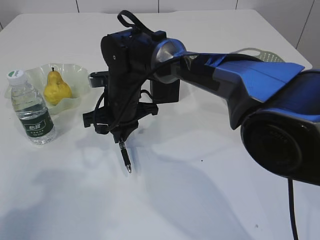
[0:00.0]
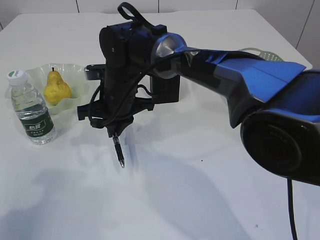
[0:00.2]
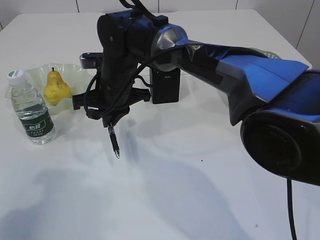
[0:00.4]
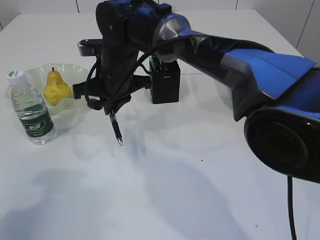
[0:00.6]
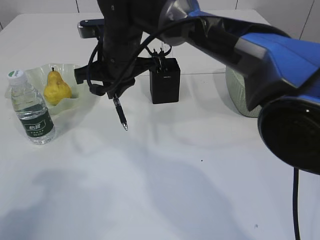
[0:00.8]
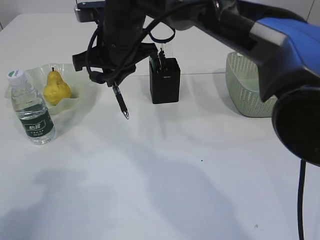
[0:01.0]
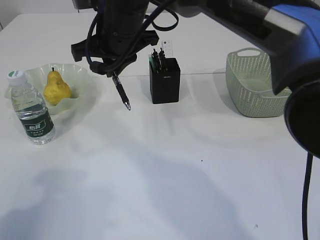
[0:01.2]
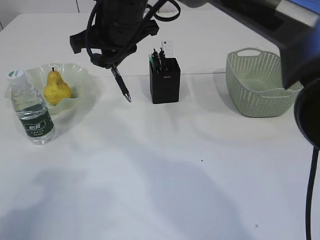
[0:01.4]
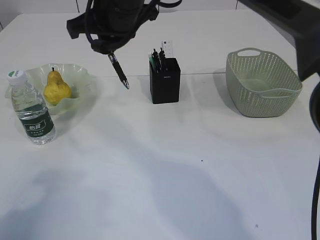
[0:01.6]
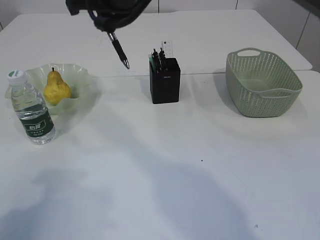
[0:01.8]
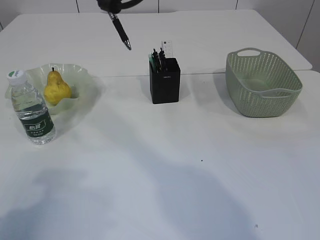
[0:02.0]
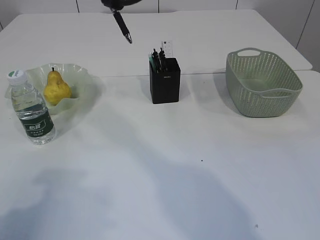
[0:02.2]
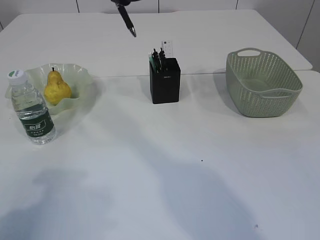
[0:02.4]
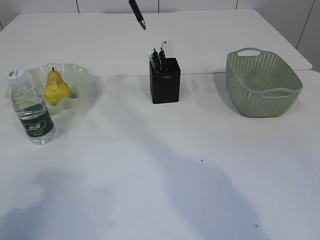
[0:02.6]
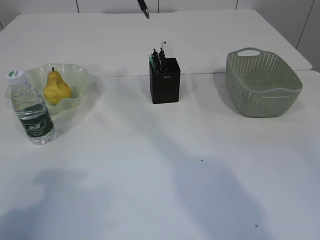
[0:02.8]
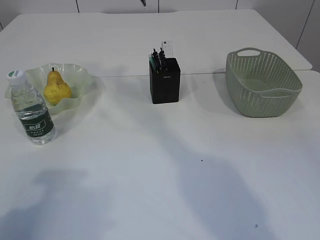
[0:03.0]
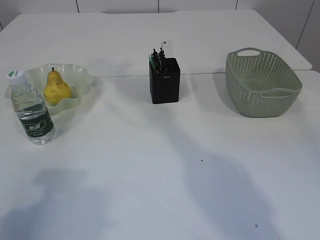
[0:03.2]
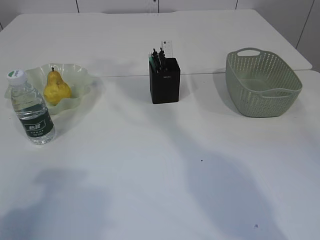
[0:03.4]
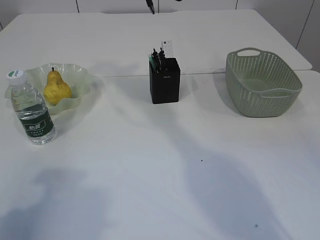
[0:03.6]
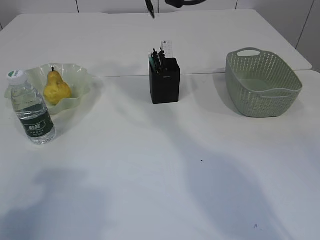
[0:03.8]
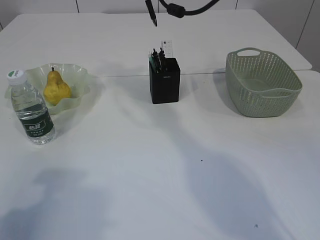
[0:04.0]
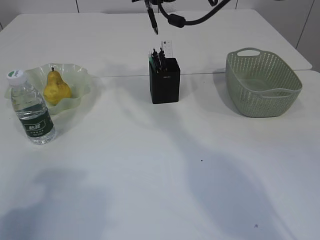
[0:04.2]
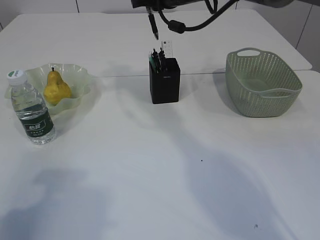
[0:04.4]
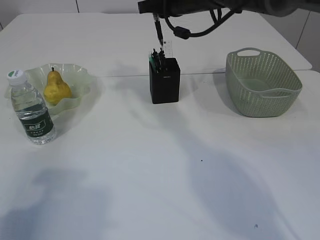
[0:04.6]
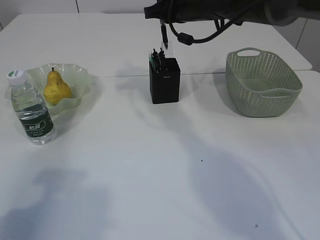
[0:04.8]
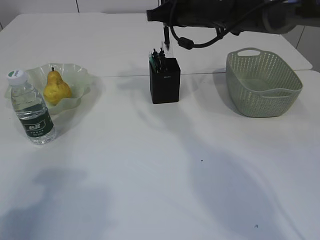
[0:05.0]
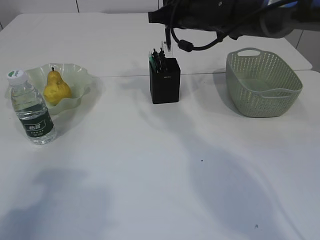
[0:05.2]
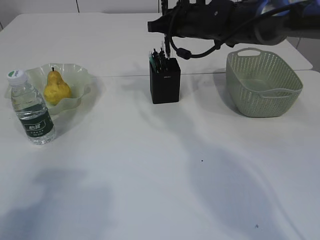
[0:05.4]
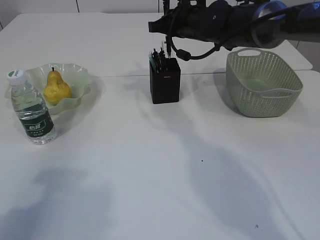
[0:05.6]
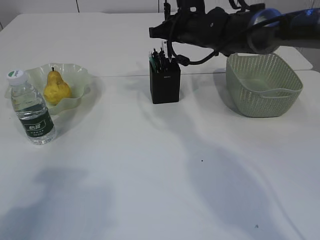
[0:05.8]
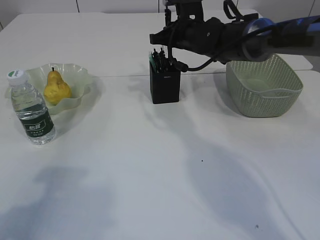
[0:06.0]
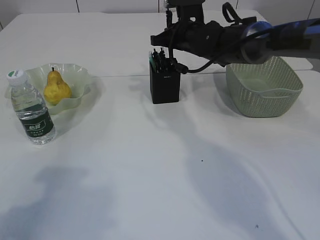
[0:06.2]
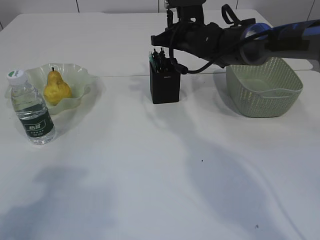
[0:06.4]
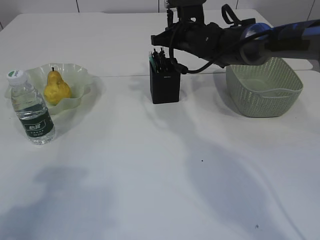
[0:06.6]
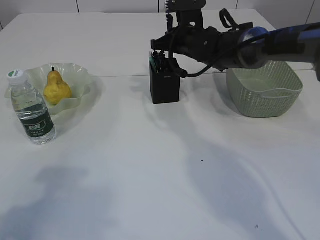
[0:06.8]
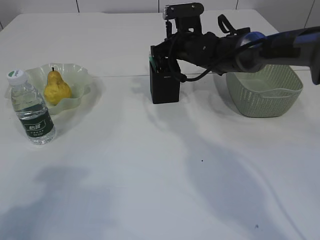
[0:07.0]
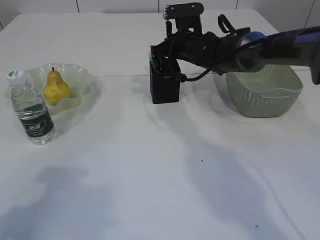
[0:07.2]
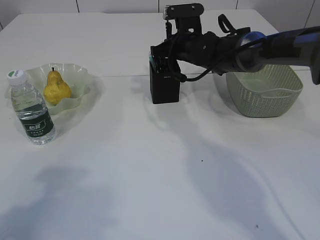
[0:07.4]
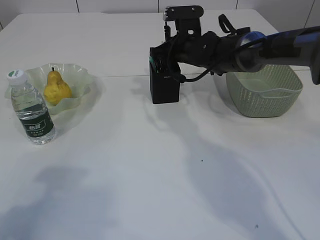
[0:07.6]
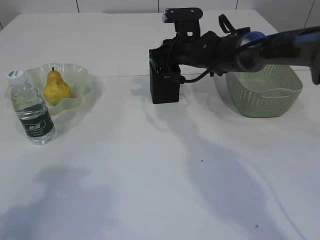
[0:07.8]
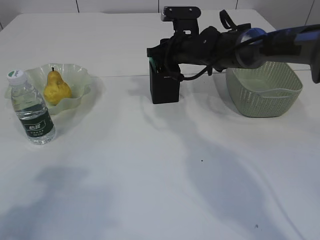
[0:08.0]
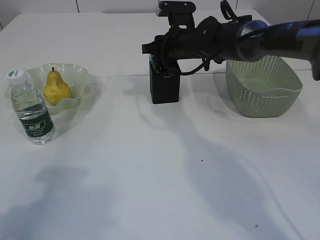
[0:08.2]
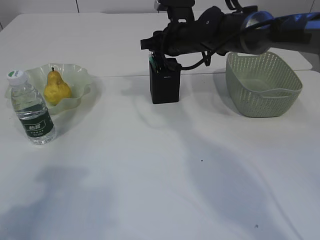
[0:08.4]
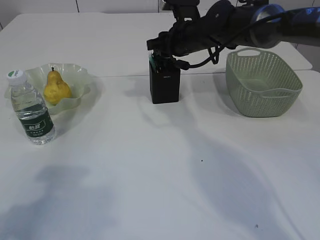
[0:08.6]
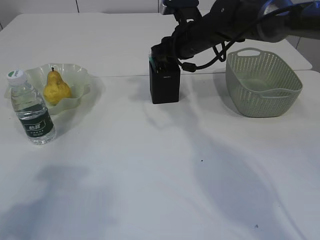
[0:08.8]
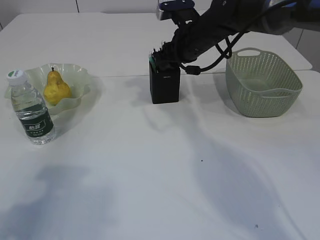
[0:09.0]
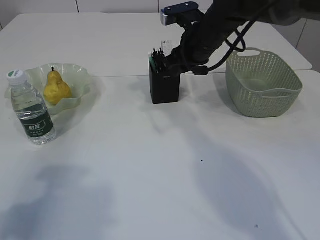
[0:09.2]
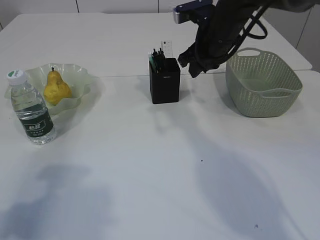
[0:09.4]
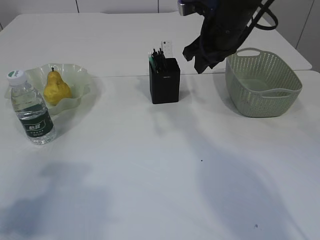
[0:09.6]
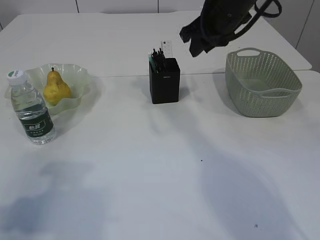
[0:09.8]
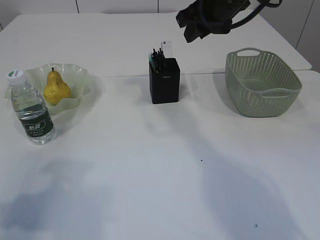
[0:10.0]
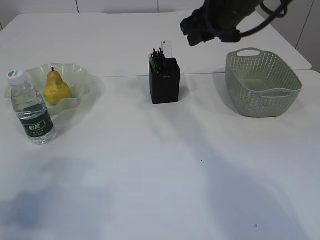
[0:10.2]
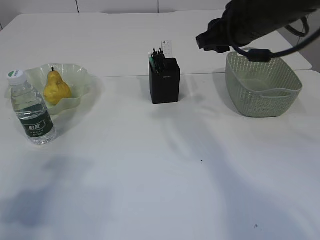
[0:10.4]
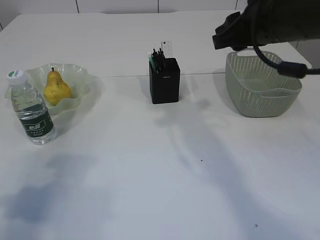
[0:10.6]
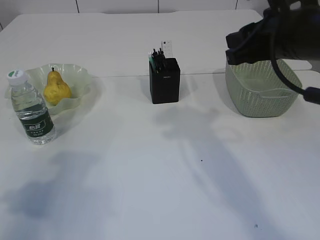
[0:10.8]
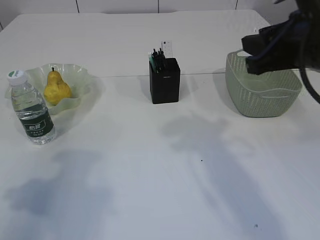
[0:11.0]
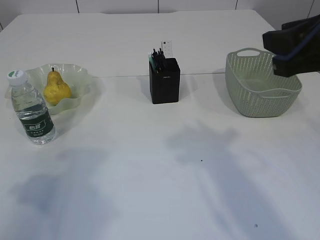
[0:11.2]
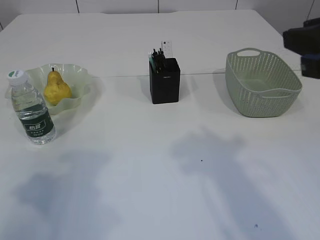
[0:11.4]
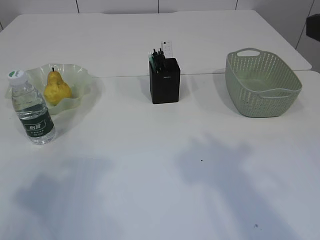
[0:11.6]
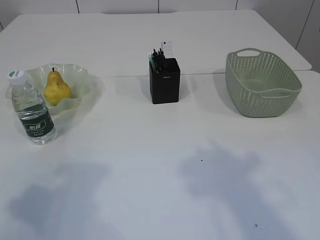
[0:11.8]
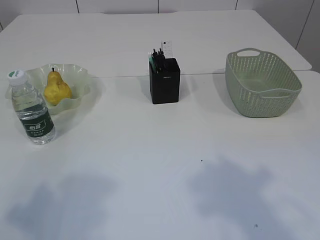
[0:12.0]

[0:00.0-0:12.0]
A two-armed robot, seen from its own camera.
Step, 0:00.8 to 0:09.4: Place the pen into the pen holder.
0:00.0 to 0:01.6: The right gripper moves upward, roughly 15 cm.
0:01.6 to 0:03.0: The right gripper shifts roughly 10 cm upward and to the right.
0:03.0 to 0:04.4: The right gripper goes roughly 10 cm downward.
0:04.4 to 0:06.0: The right gripper travels downward by about 10 cm.
0:06.0 to 0:07.6: The grippers make only small movements.
0:07.6 to 0:09.0: The right gripper moves some 5 cm.
0:09.0 to 0:10.4: The right gripper travels backward, upward and to the right by approximately 15 cm.
0:10.4 to 0:12.0: The left gripper travels backward and upward by approximately 10 cm. Meanwhile the right gripper is displaced backward by approximately 25 cm.

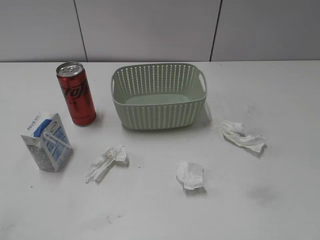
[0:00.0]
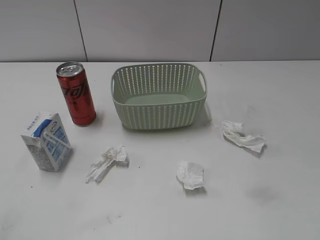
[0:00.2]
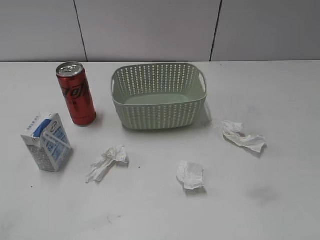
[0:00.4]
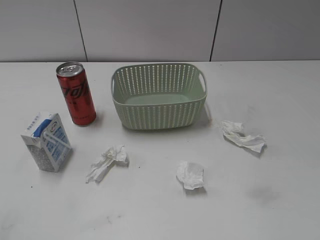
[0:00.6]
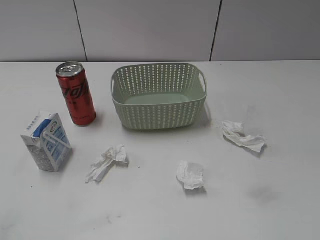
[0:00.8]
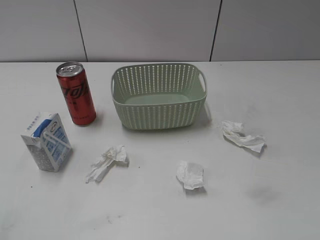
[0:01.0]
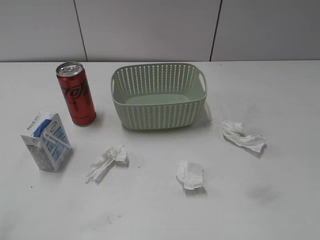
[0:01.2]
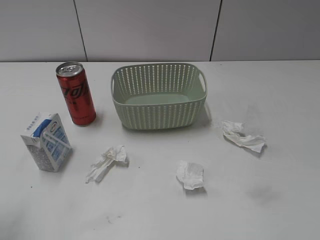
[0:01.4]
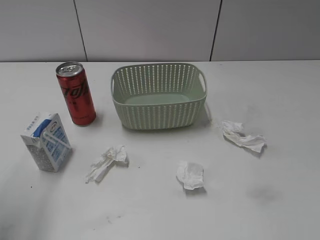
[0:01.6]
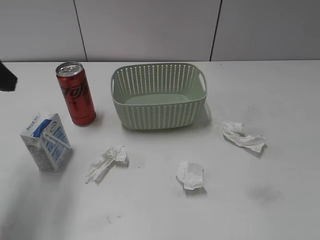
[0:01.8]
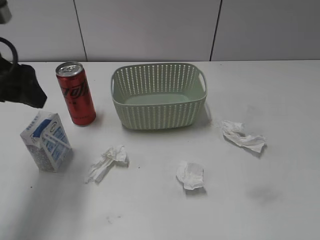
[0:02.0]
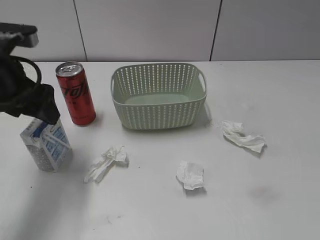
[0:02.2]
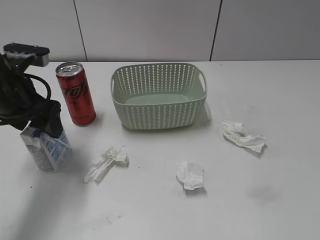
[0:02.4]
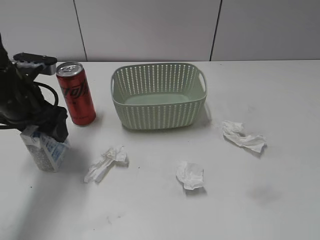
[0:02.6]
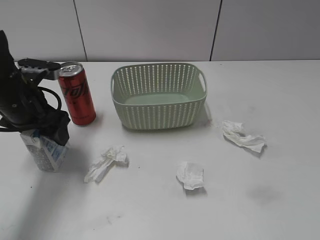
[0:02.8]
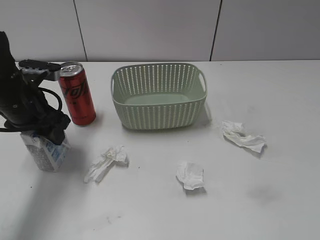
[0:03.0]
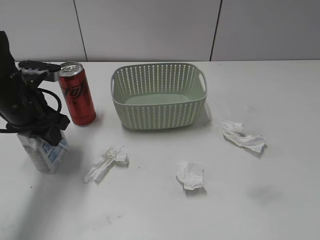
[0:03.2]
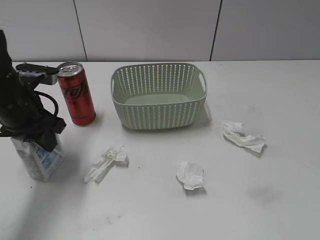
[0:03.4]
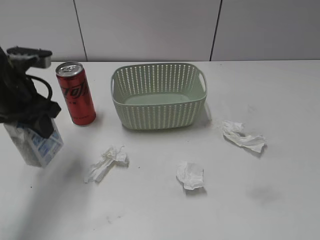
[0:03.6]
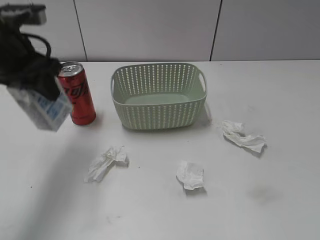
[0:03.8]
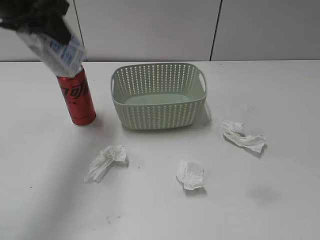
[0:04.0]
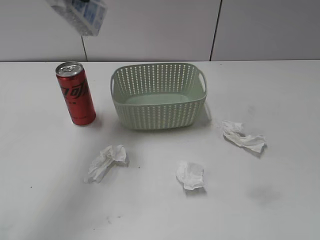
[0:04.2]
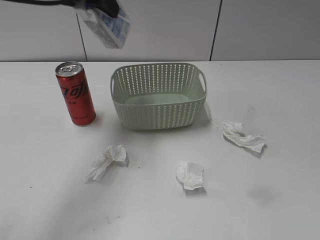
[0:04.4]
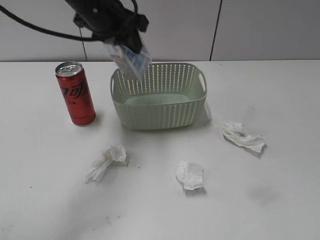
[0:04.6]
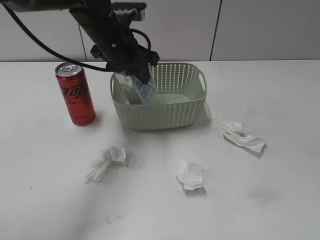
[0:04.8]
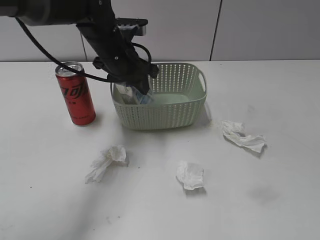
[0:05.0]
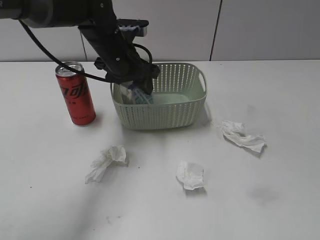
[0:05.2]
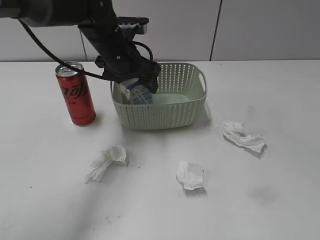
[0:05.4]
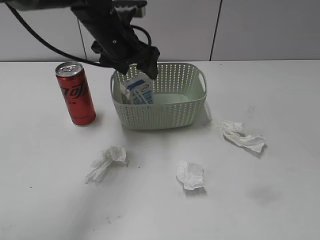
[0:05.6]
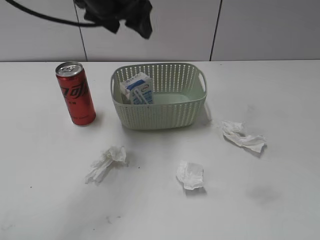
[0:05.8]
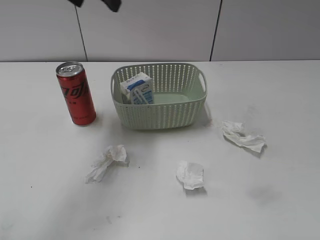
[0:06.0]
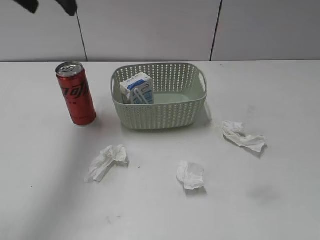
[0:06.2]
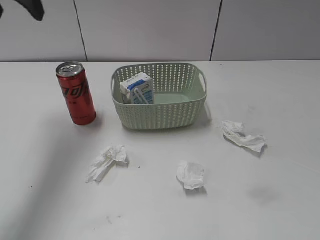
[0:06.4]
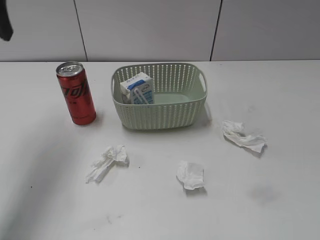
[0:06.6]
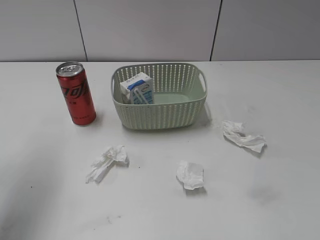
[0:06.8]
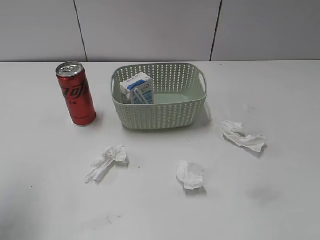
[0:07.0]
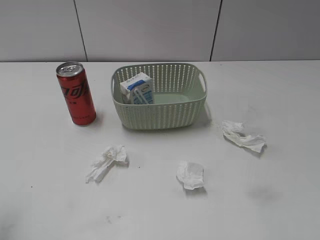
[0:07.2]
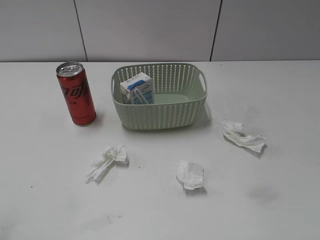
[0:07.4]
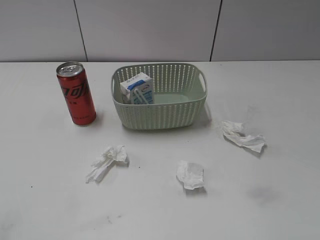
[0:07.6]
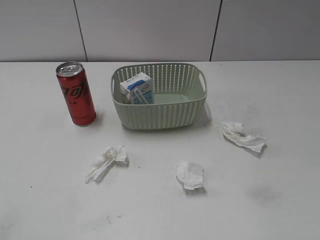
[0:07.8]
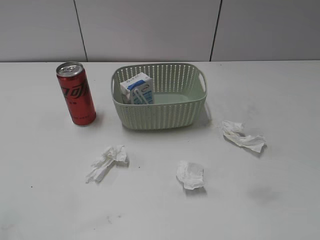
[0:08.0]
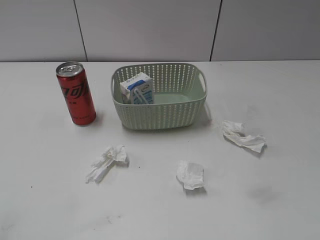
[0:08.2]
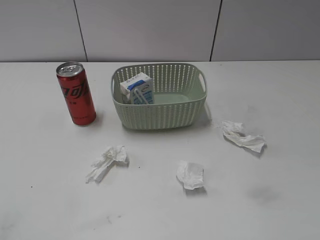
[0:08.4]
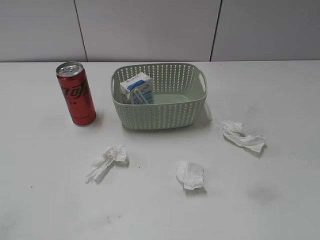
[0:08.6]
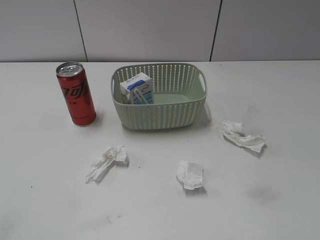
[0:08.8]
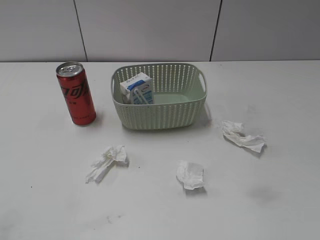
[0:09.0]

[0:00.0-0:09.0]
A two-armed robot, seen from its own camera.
Step, 0:01.8 to 0:03.2: Grasp the milk with left gripper.
Step, 0:03.4 to 0:05.6: Place the milk in the basket with left gripper.
0:01.6 to 0:03.0: The left gripper travels downward, forward and to the right by approximately 20 cm, and closes its fingers.
0:03.0 to 0:04.4: The left gripper goes some 20 cm upward, to the right and forward.
0:04.4 to 0:06.0: The left gripper moves roughly 15 cm downward and comes back, and opens its fingers.
0:06.0 to 0:07.6: The left gripper moves backward and to the left, roughly 35 cm.

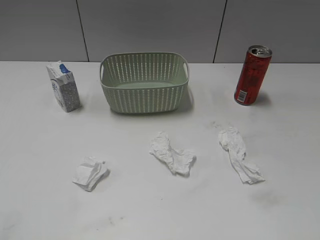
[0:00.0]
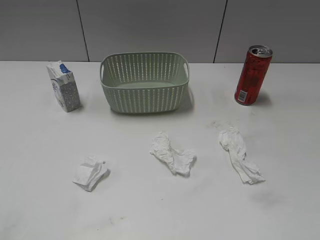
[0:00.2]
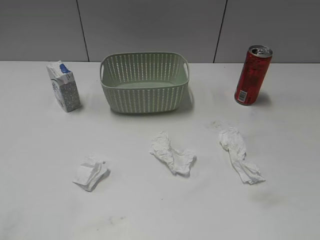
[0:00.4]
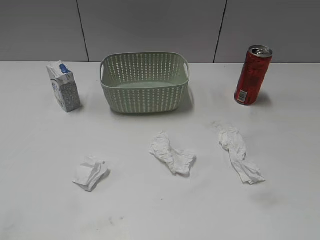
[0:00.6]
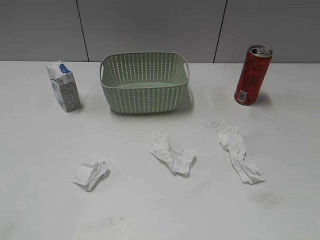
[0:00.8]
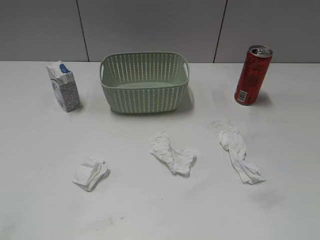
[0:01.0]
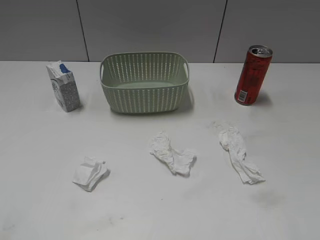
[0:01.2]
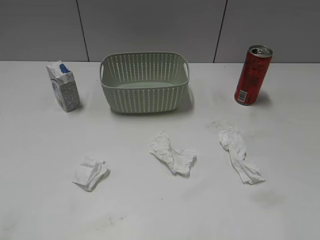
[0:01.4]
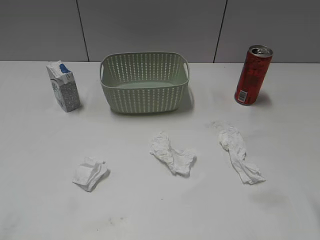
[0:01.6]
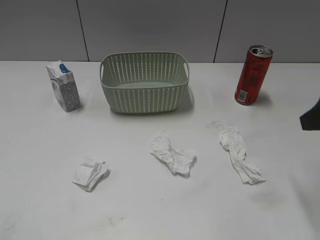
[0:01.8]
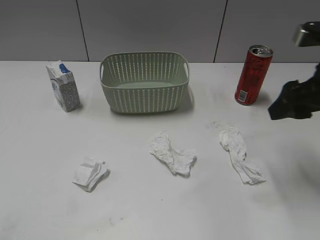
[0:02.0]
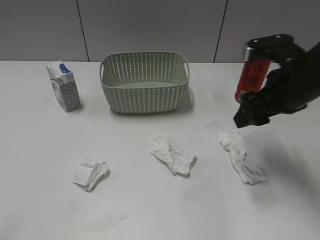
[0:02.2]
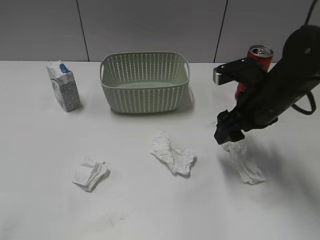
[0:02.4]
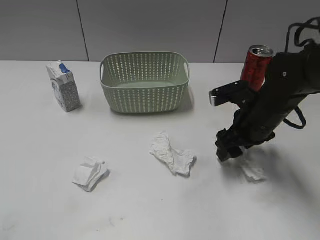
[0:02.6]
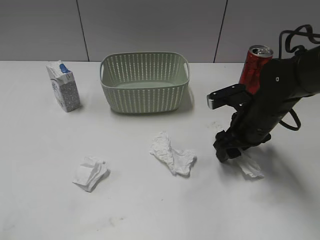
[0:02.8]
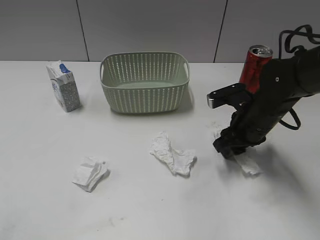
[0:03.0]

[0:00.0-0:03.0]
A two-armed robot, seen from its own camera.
0:01.6 to 0:03.0: The right gripper shifts about 25 cm forward, downward and to the left.
